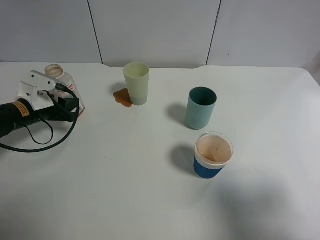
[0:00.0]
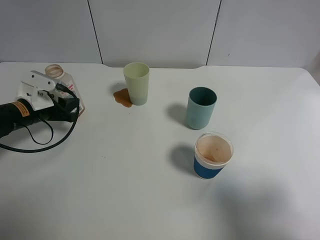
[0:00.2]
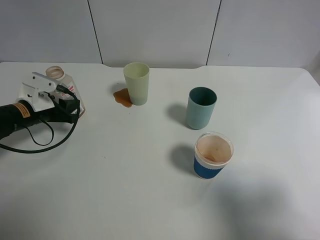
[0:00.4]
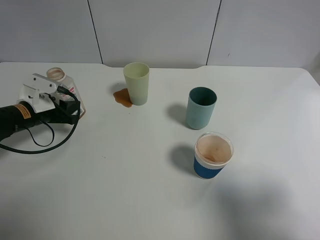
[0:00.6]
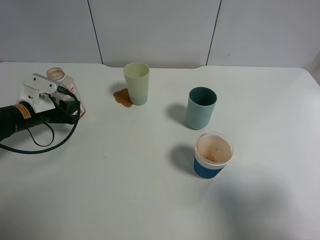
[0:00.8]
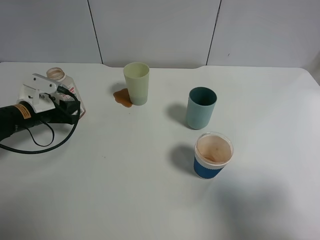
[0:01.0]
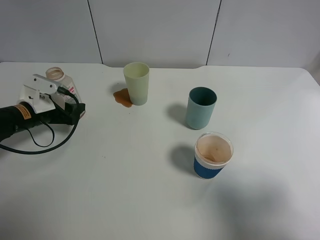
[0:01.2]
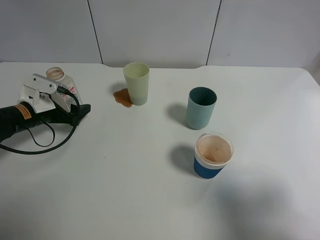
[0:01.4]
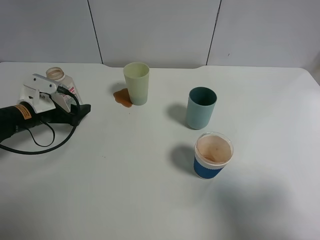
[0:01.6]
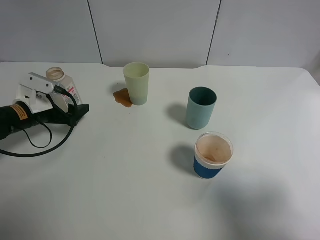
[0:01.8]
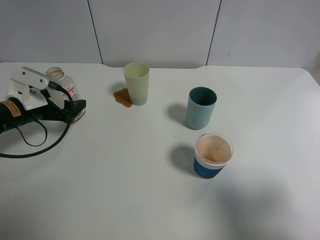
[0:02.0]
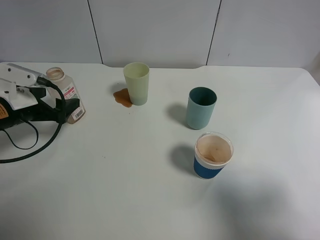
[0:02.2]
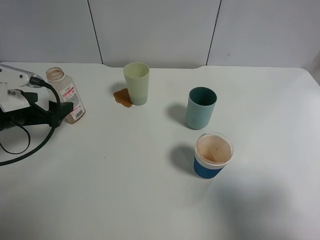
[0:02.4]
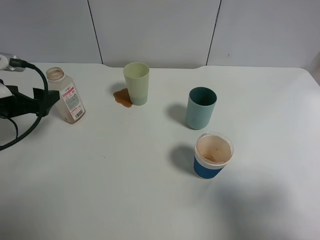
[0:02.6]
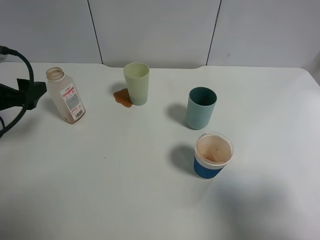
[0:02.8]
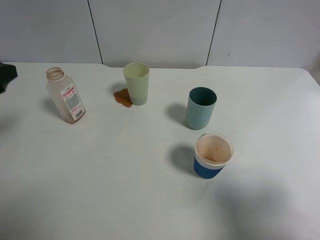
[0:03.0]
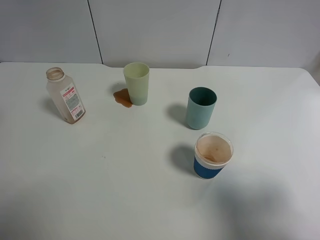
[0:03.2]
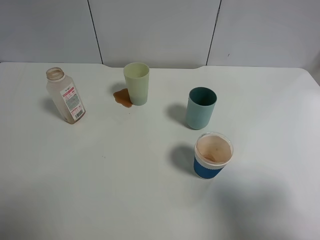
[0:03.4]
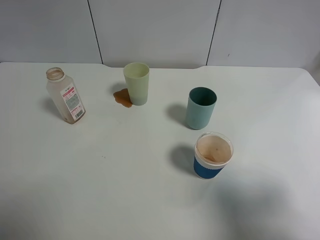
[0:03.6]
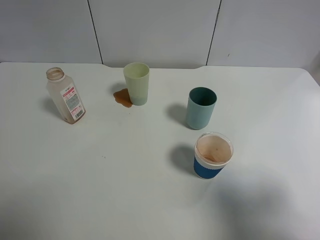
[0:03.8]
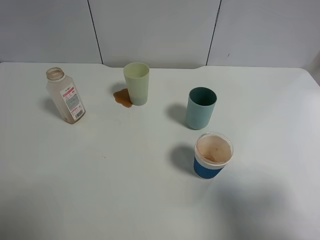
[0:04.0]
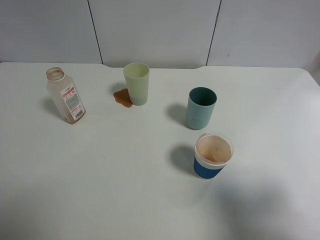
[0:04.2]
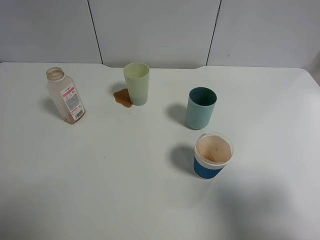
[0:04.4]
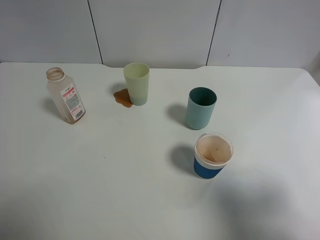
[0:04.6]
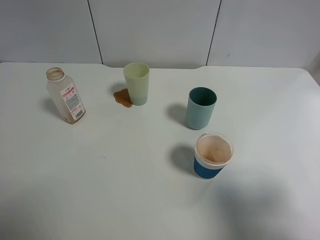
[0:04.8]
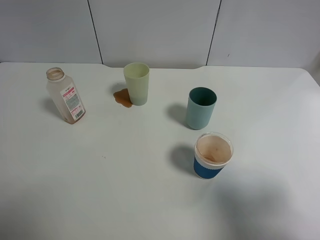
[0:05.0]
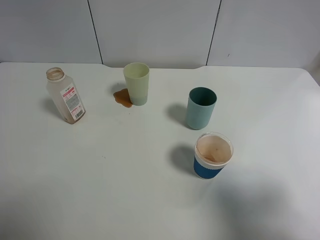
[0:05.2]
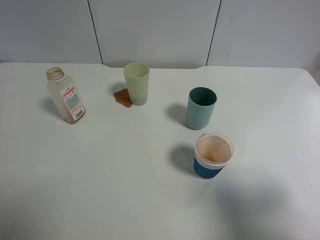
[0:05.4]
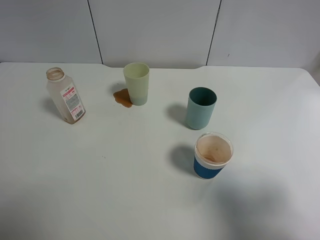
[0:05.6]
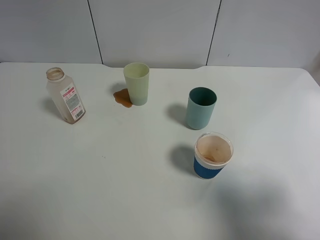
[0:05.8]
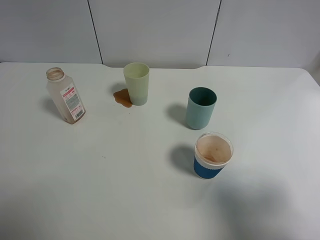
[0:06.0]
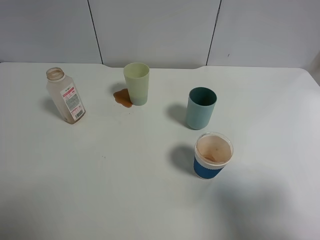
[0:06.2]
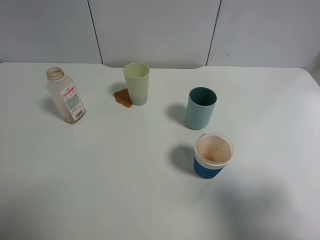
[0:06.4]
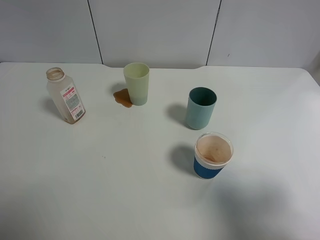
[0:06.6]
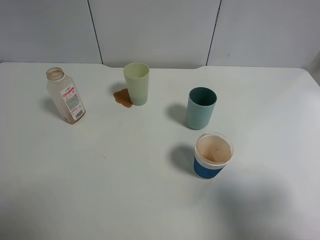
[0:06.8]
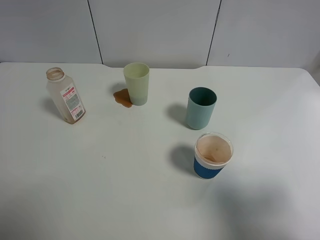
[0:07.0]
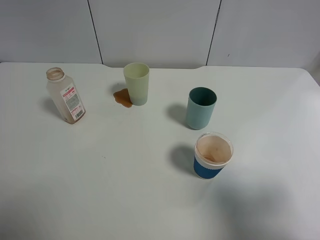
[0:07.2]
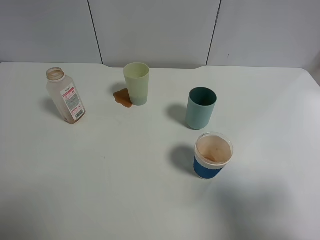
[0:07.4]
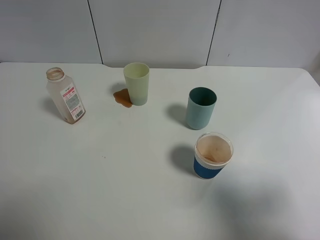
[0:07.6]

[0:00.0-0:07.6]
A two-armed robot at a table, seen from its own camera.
Task of the whole recording: use a gripper to hold the bottle of the drink and pour it into a random cup.
Step, 0:00.0 to 0:02.2: Place the cranberry juice bottle on the table with the left gripper.
0:00.0 to 0:01.6: The left gripper opens.
0:01.6 to 0:03.0: The left gripper travels upward and backward by roughly 20 cm.
0:03.0 to 0:04.6: The left gripper moves backward, roughly 20 cm.
0:06.0 to 0:07.6: Both grippers stay put.
